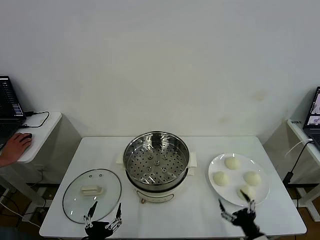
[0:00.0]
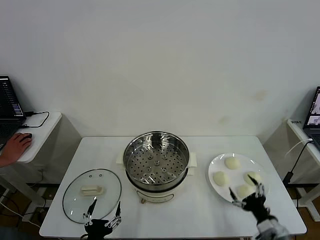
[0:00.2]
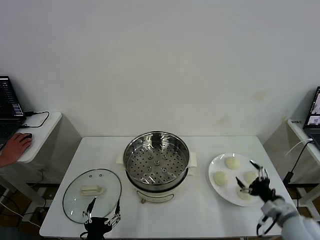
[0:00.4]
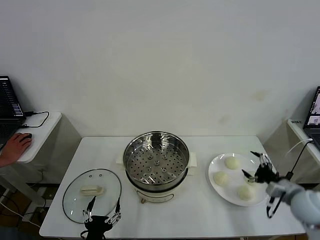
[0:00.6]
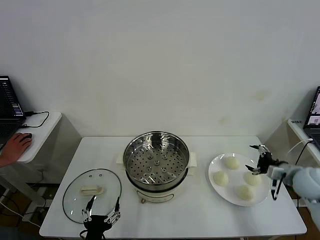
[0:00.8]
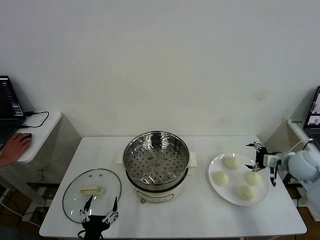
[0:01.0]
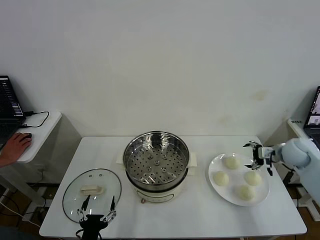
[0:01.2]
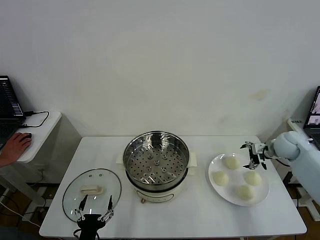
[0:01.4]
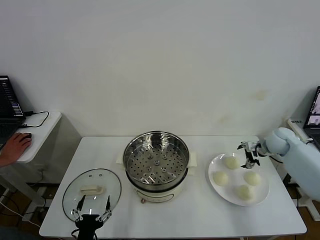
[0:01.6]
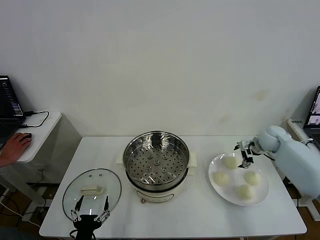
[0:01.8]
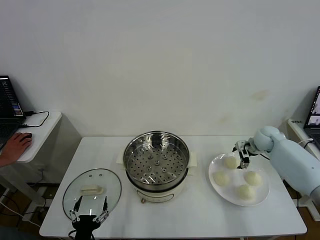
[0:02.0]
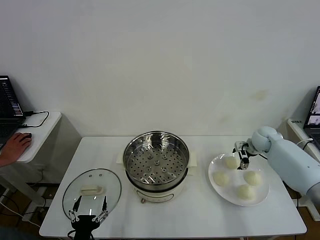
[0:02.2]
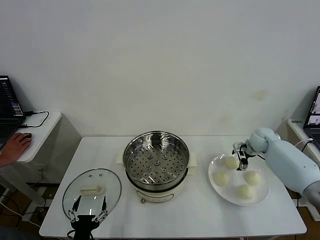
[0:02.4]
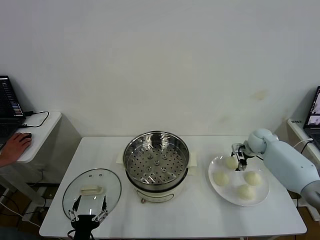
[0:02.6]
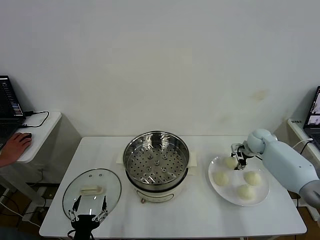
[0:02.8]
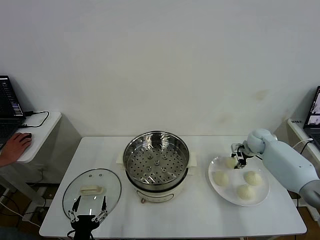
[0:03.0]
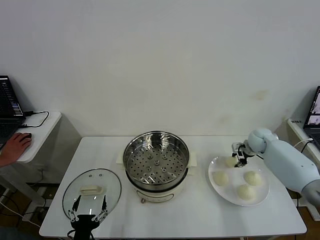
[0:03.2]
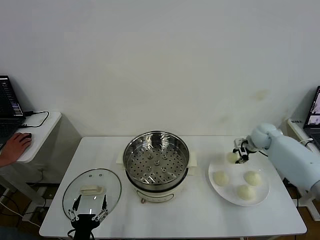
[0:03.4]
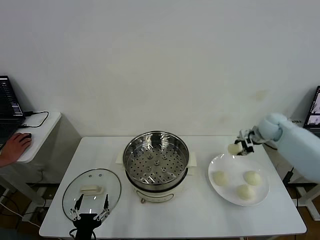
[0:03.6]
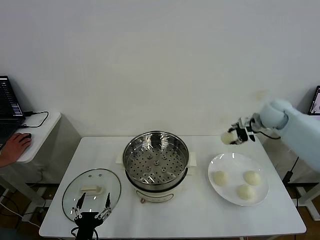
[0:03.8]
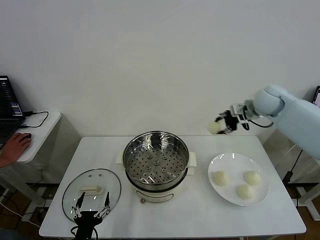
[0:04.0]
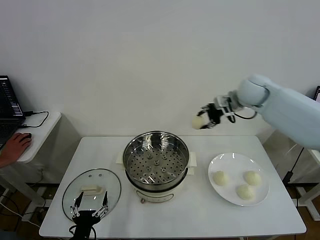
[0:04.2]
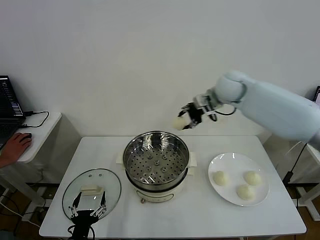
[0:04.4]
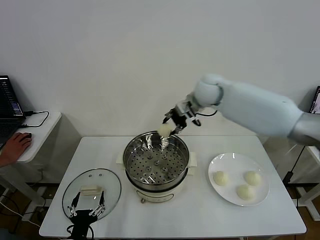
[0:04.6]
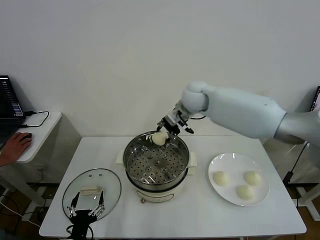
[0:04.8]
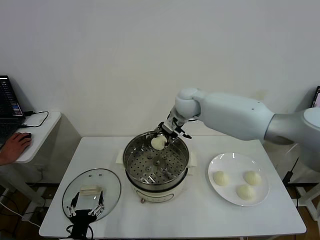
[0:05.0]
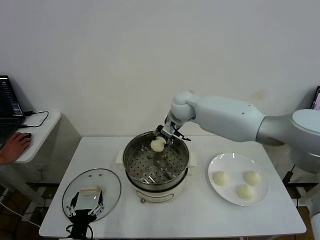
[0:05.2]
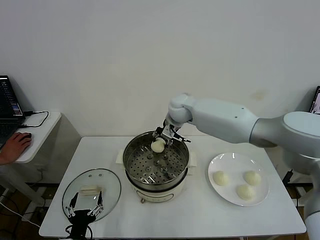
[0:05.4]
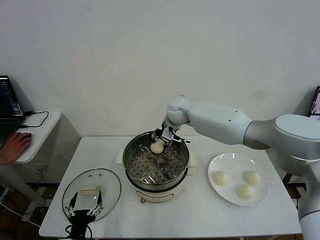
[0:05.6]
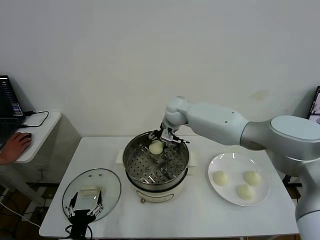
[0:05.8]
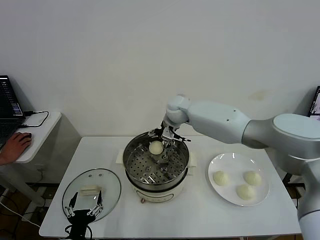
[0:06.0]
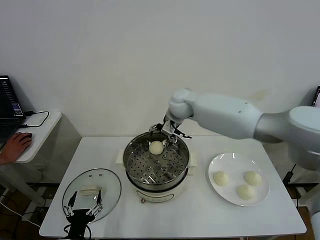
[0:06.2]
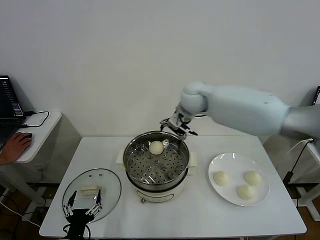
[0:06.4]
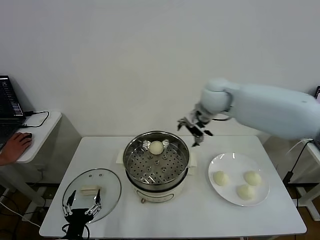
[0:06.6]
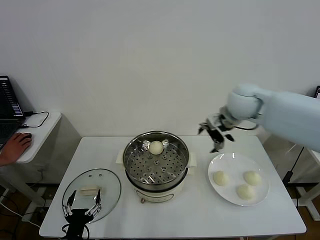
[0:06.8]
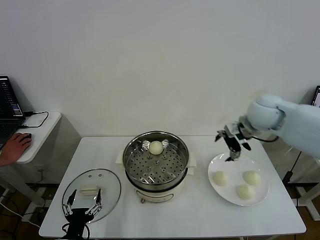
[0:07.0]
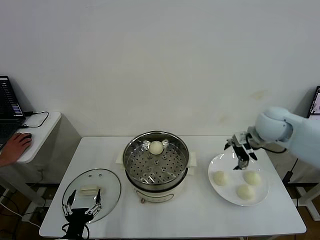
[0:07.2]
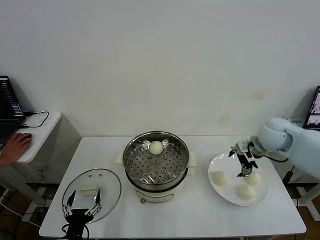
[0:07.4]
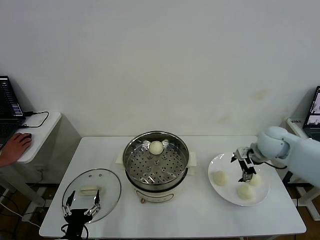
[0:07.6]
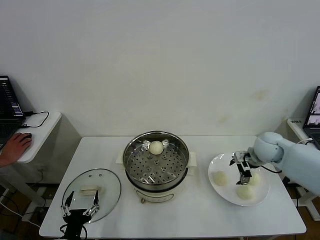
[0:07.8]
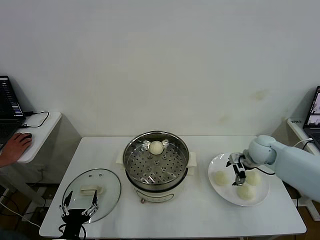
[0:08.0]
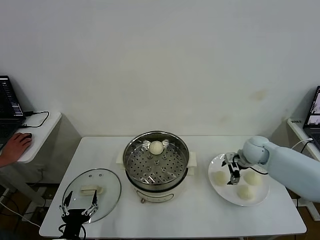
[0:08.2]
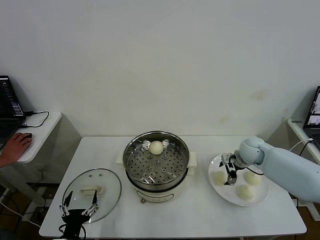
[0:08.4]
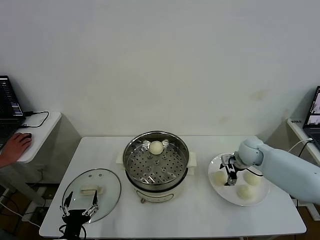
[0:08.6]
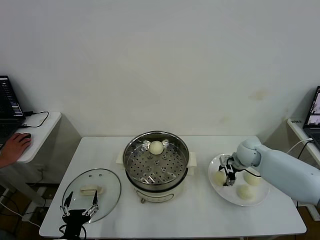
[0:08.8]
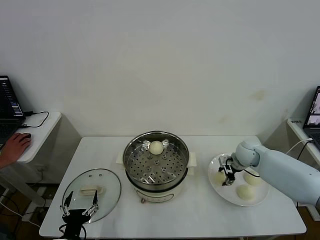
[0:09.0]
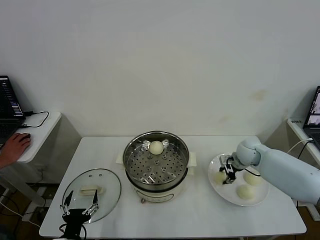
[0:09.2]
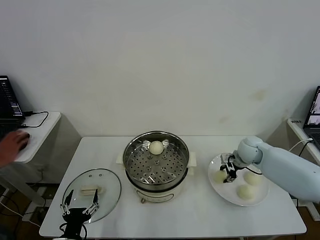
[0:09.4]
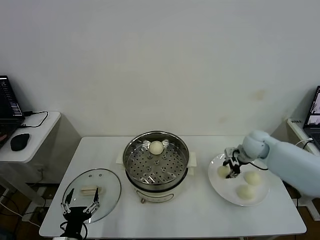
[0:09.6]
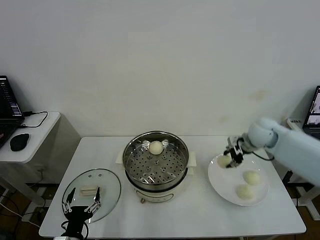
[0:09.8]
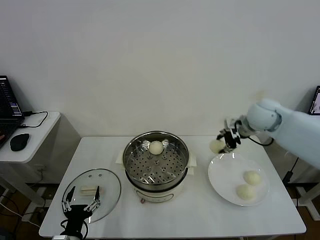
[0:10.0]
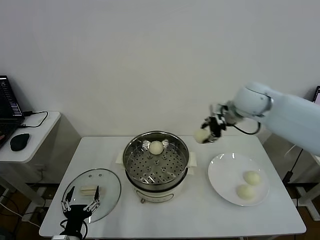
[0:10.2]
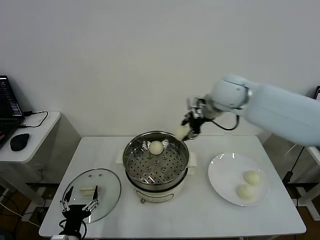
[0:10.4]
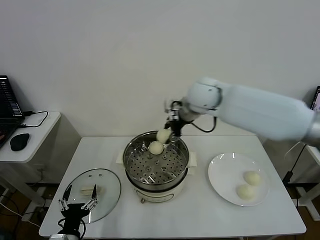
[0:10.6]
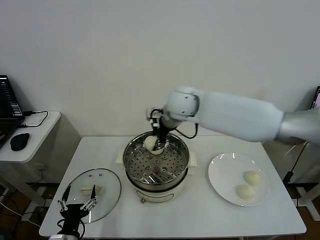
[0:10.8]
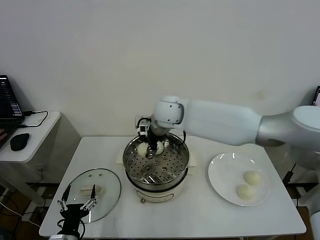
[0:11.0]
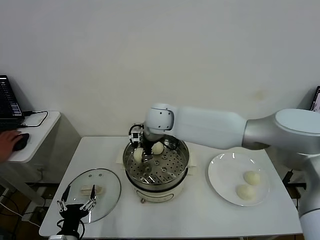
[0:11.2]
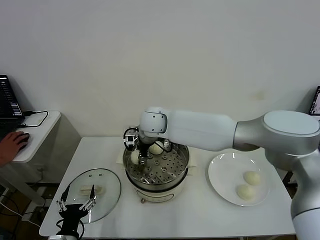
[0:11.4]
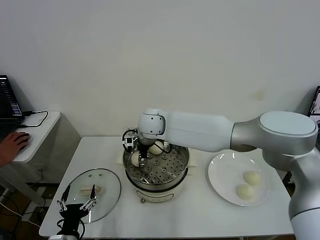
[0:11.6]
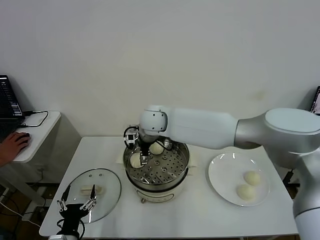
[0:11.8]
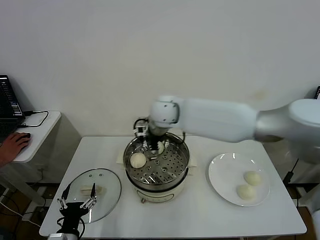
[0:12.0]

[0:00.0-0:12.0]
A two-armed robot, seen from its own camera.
Task of the whole recording: take steamed baozi put them in steamer then cover it.
Step, 0:00.0 to 0:02.8: Grasp the baozi in the plate with right gripper.
Step, 0:03.2 to 0:06.0: Place the baozi on the steamer with right gripper.
Step, 0:06.2 to 0:09.0: Grasp the baozi in the plate with right gripper.
Step, 0:09.2 to 0:11.6: Place the baozi on the steamer with right gripper.
0:01.6 to 0:03.0: The right gripper ends up roughly 10 cm from where it was, and closes.
0:03.0 to 0:04.4: The right gripper goes about 30 cm upward and to the left.
0:04.4 to 0:06.0: The right gripper goes some 20 cm to the left and downward, and opens its fingers.
0:06.0 to 0:07.6: The right gripper travels to the right and backward by roughly 30 cm.
0:07.6 to 0:09.0: The right gripper goes some 10 cm downward, and closes up.
0:09.0 to 0:10.4: The right gripper shifts approximately 30 cm upward and to the left.
0:10.4 to 0:12.0: The right gripper is displaced to the left by roughly 15 cm, and opens.

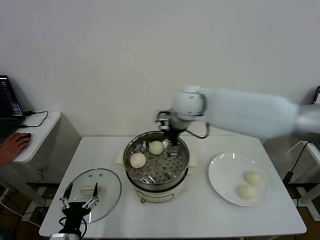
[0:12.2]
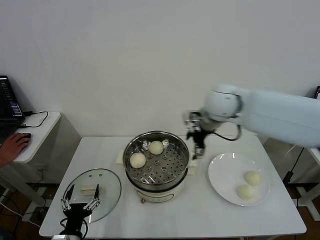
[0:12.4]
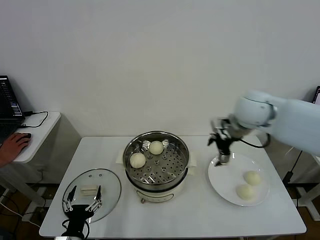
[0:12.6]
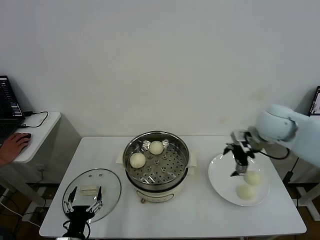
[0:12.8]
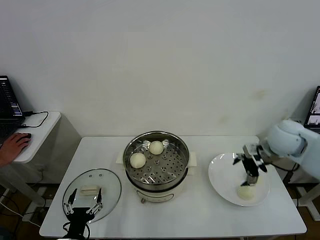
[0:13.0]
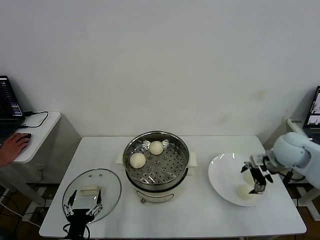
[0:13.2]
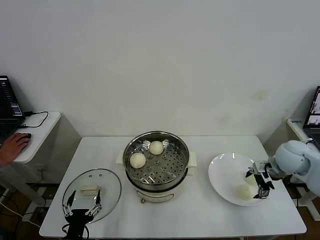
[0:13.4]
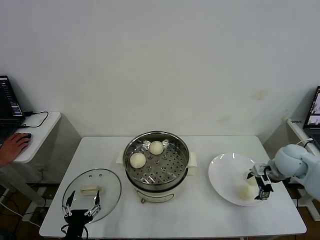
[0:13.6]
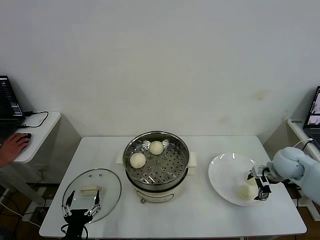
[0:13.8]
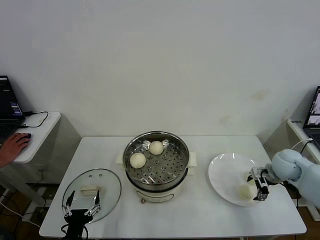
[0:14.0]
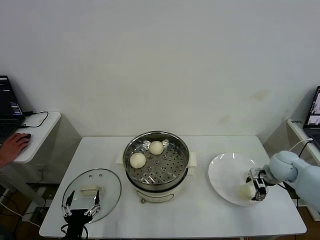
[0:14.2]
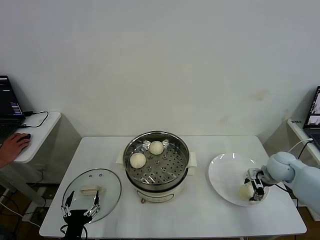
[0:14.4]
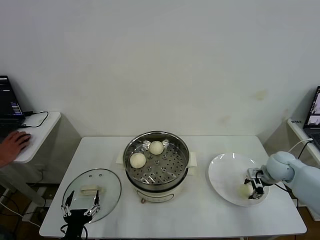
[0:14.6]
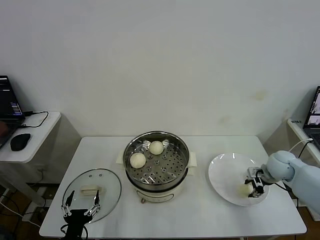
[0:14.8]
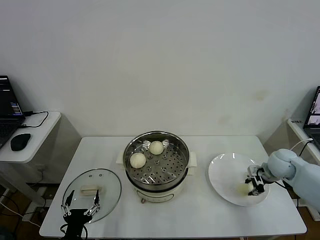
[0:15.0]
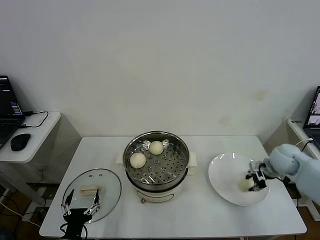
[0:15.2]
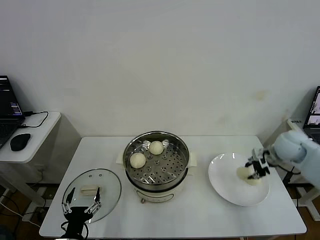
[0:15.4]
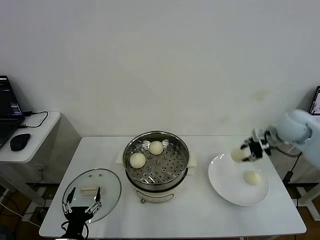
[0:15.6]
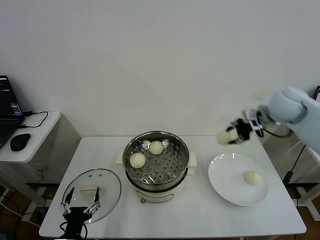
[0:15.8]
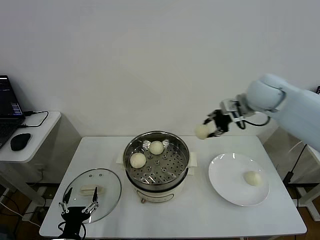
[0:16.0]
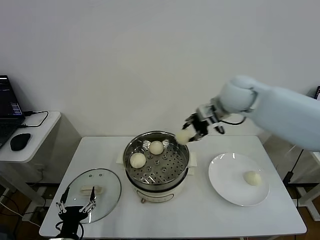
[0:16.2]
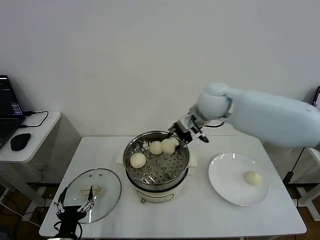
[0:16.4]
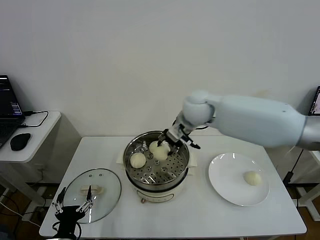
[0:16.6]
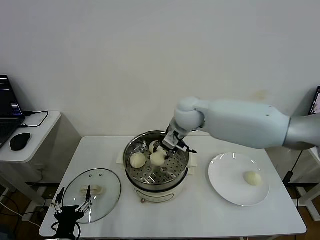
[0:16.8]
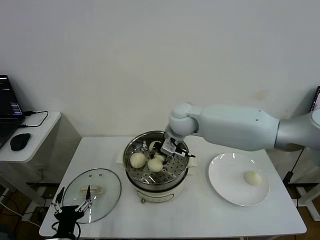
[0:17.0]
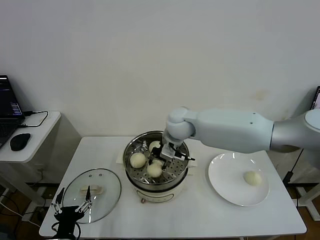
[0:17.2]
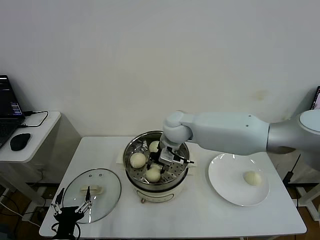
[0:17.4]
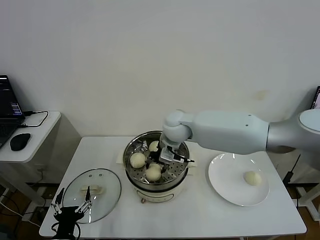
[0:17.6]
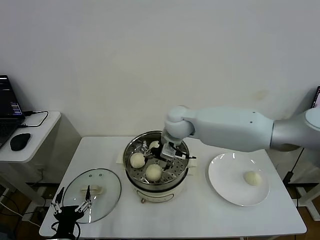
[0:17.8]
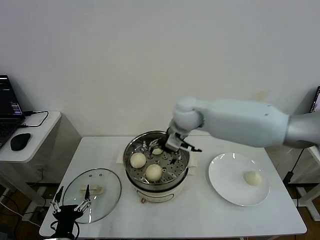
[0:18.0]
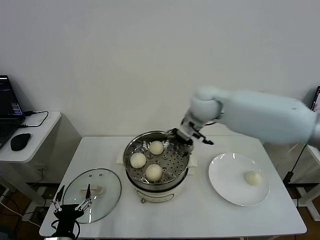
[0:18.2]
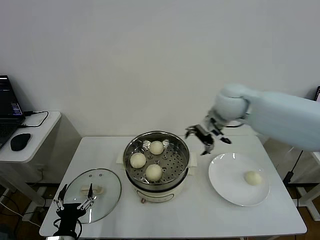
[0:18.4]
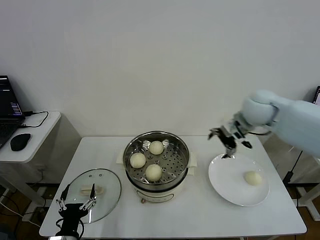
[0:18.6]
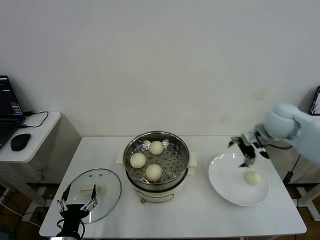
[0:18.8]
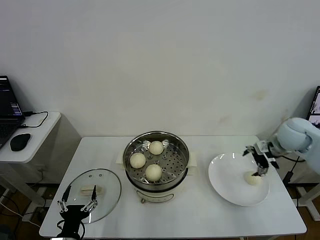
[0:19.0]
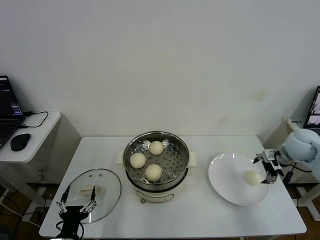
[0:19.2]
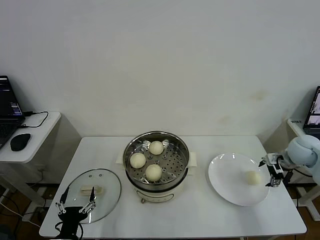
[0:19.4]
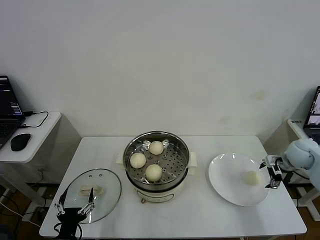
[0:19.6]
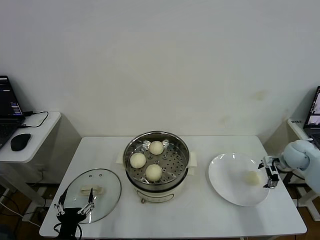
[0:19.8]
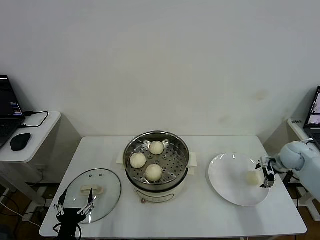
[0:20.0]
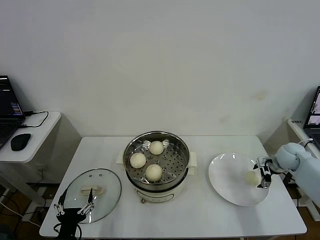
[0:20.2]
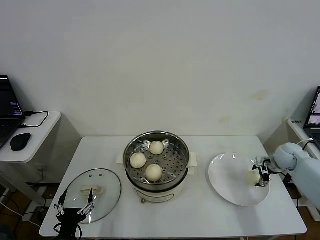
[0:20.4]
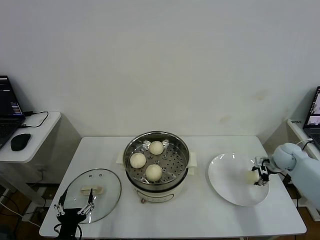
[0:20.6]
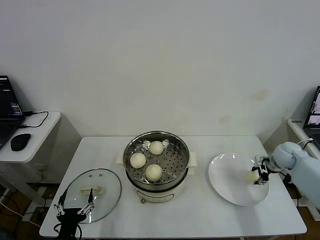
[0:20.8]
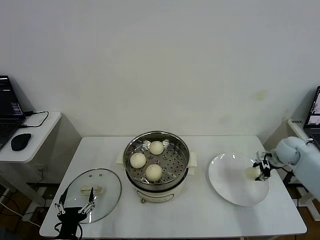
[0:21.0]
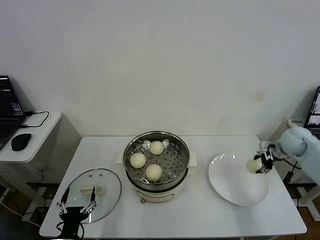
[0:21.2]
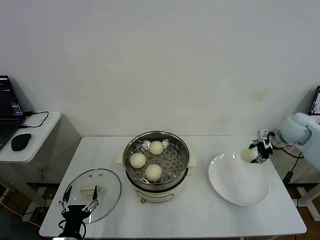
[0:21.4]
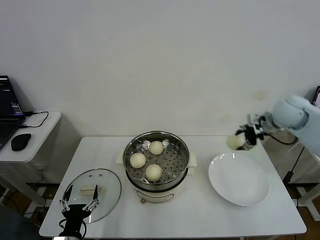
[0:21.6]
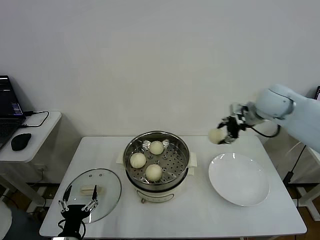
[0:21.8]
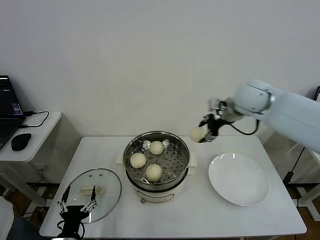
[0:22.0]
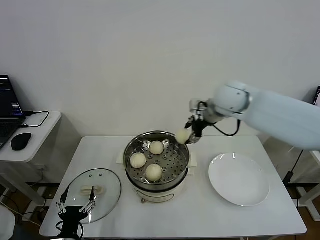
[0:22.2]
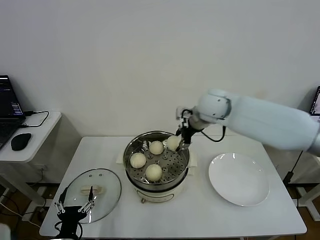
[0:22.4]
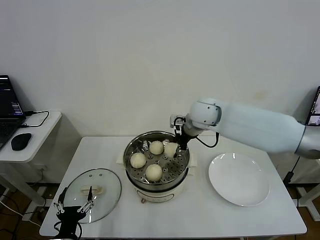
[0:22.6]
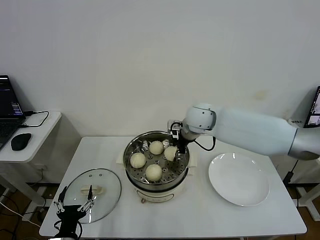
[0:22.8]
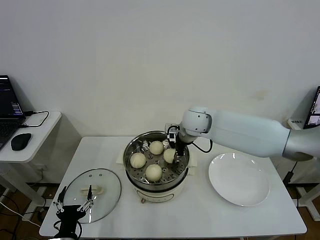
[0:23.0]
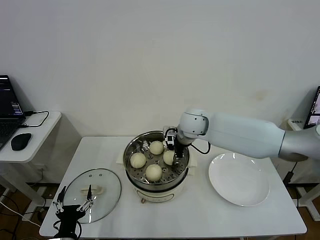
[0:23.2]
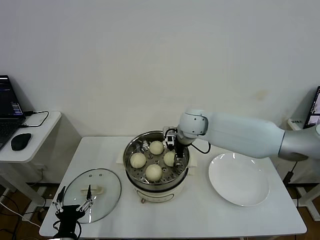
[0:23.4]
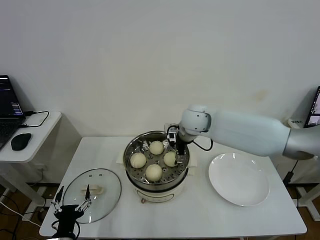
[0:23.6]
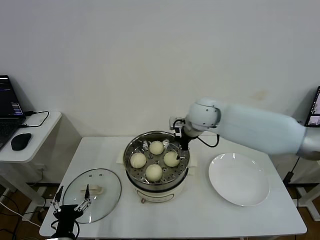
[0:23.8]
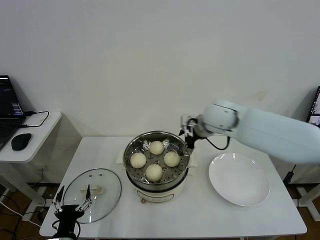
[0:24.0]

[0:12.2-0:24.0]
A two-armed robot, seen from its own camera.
Task of the whole recording: take steamed baozi put them in steamer then cover it.
Step, 0:12.2 to 0:14.6: Grasp the baozi in the plate with right gripper.
Step, 0:14.8 to 0:17.8: Place the baozi on the steamer with right gripper.
Step, 0:18.0 to 0:20.6: Grasp the baozi in the plate with right gripper.
Step, 0:20.8 to 0:23.8: Place the baozi on the steamer with right gripper.
0:12.2 to 0:13.6: The right gripper heads to the right and downward, covering some 35 cm.
0:13.6 to 0:15.2: The right gripper closes.
0:15.2 to 0:16.6: The right gripper travels to the left and upward by about 35 cm.
0:16.6 to 0:18.2: The right gripper goes to the left and returns, roughly 5 cm each way, and opens its fingers.
0:18.2 to 0:19.6: The right gripper travels to the right and downward by approximately 40 cm.
0:19.6 to 0:21.0: The right gripper closes its fingers.
0:21.0 to 0:22.6: The right gripper travels to the left and upward by some 35 cm.
0:22.6 to 0:24.0: The right gripper opens up.
